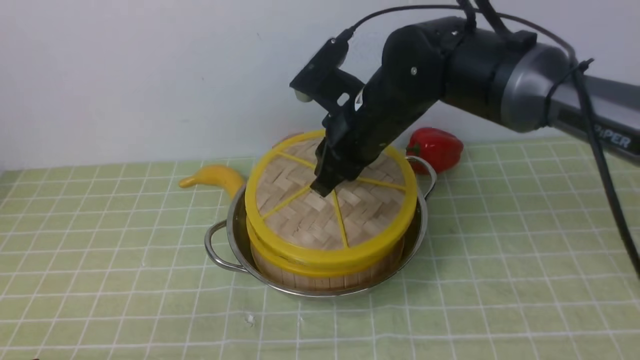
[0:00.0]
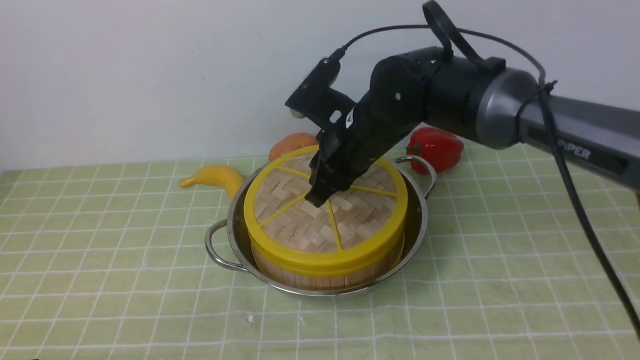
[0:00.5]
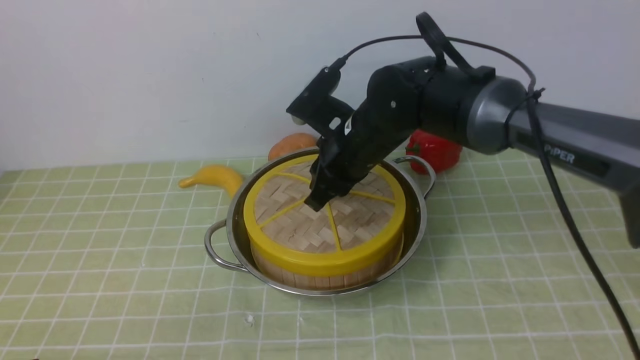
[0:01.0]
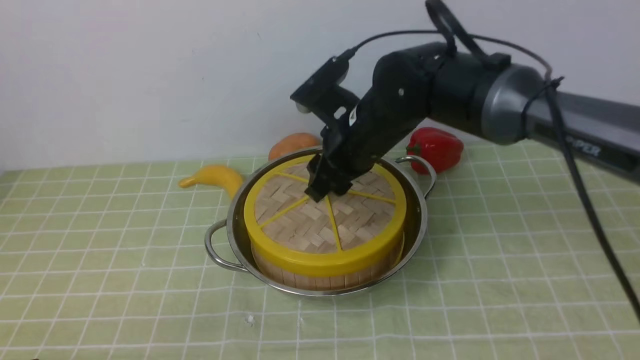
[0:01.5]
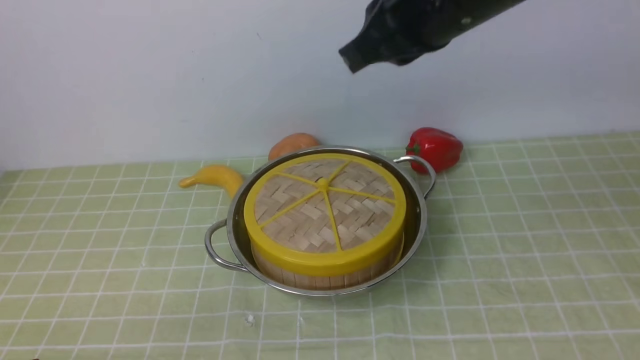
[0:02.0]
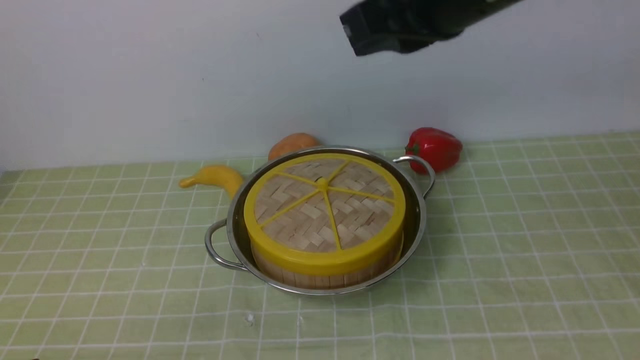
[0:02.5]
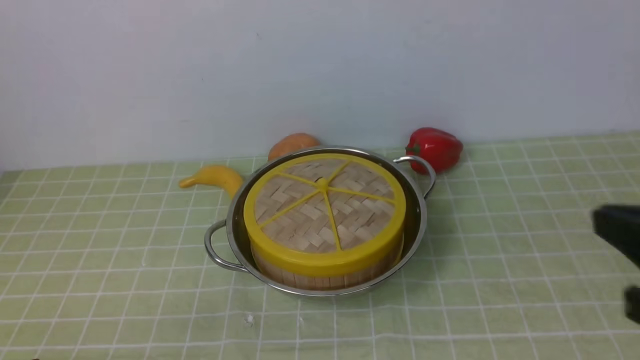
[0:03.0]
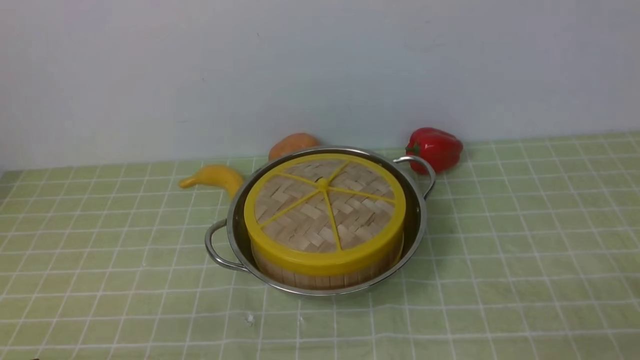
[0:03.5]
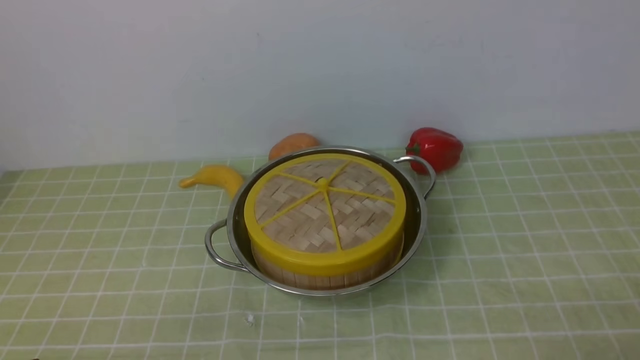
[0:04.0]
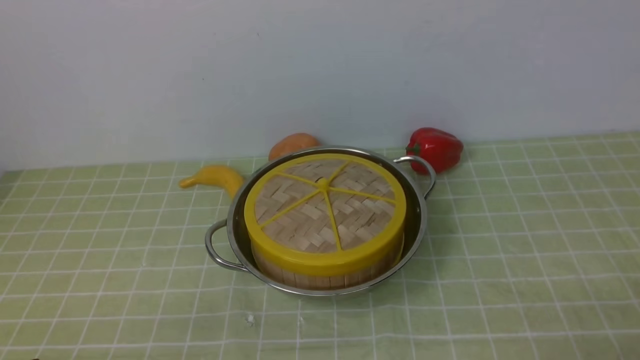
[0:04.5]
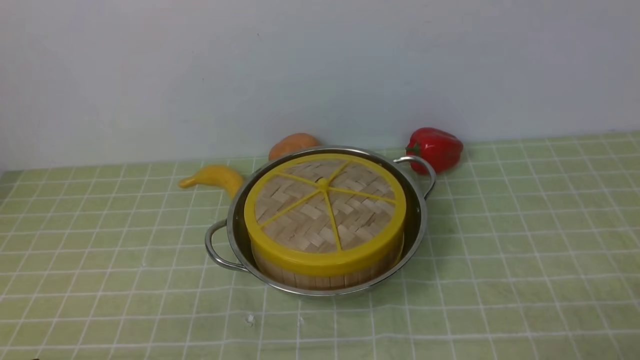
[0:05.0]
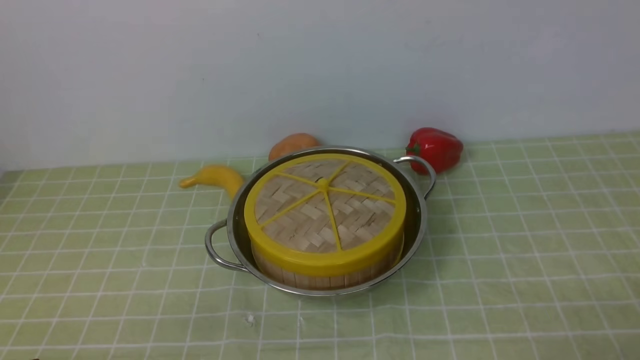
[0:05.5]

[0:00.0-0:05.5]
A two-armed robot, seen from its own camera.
Task of the whole recording: place the steamer in the pot on the green tablecloth, and put the lid on the steamer.
0:00.0 to 0:02.0: The right gripper heads upward and backward, covering some 15 cm, and closes up.
0:02.0 to 0:03.5: The right gripper shifts some 40 cm backward, to the right and downward.

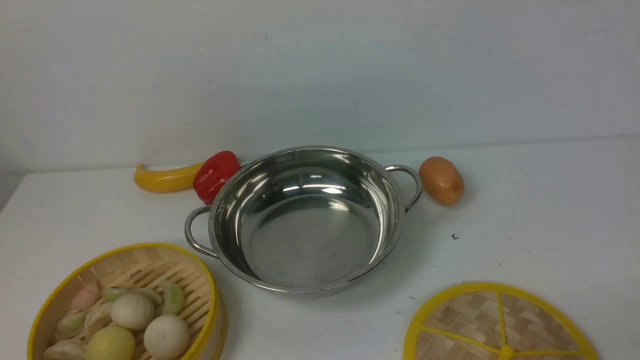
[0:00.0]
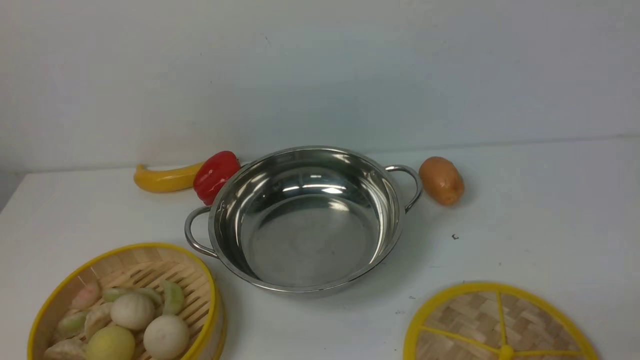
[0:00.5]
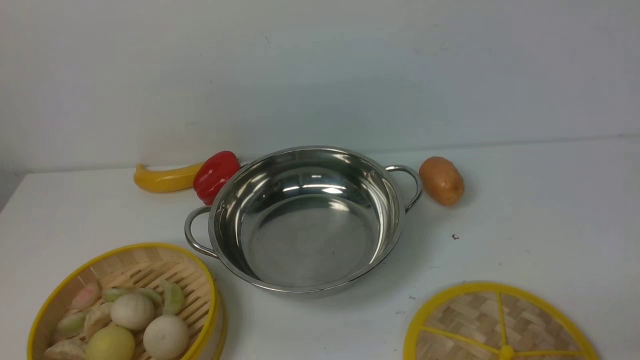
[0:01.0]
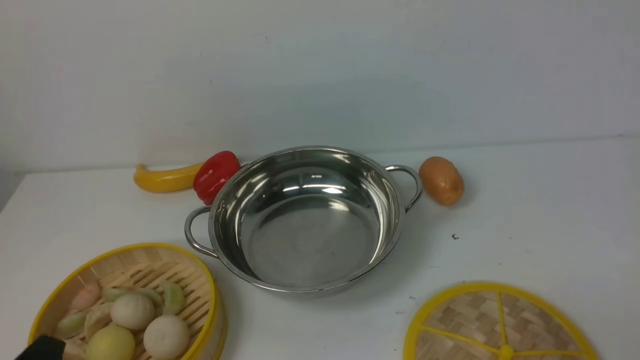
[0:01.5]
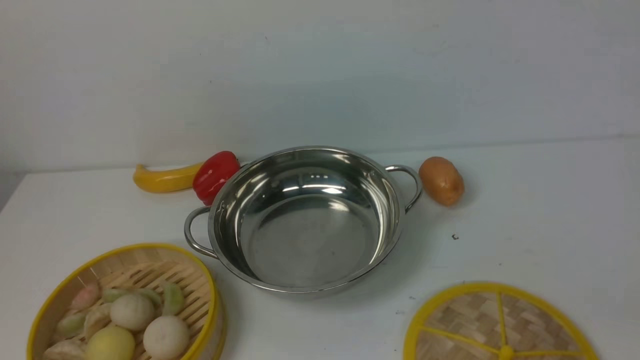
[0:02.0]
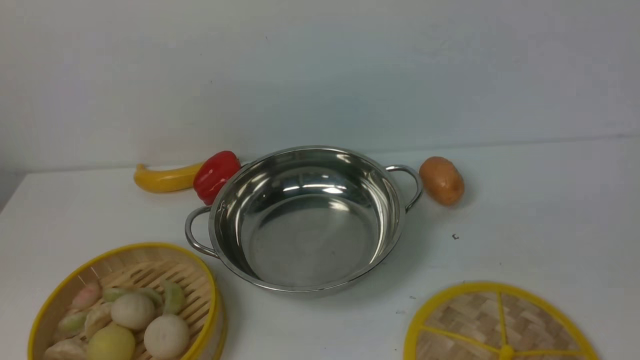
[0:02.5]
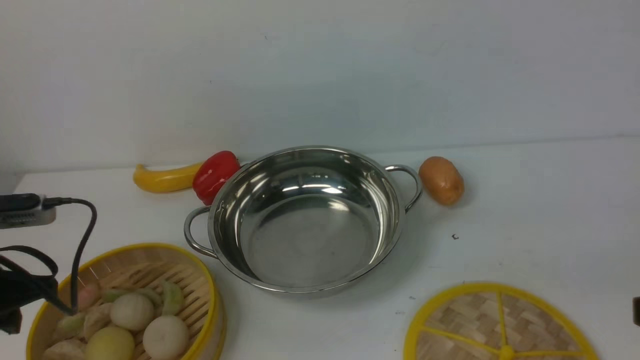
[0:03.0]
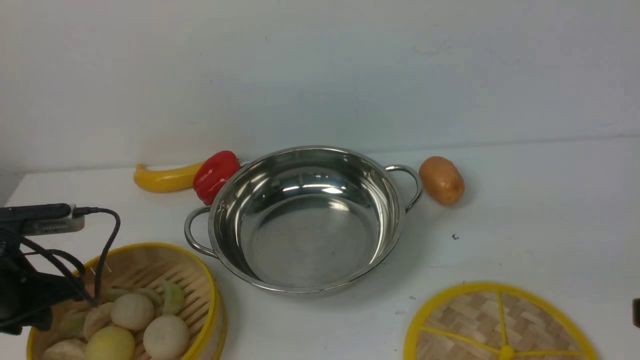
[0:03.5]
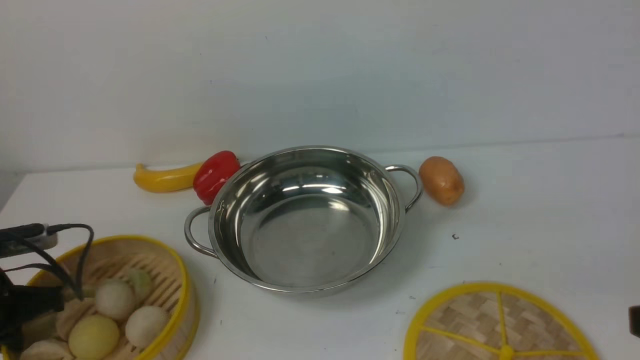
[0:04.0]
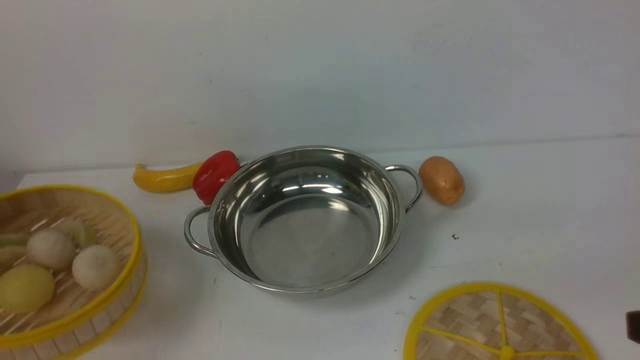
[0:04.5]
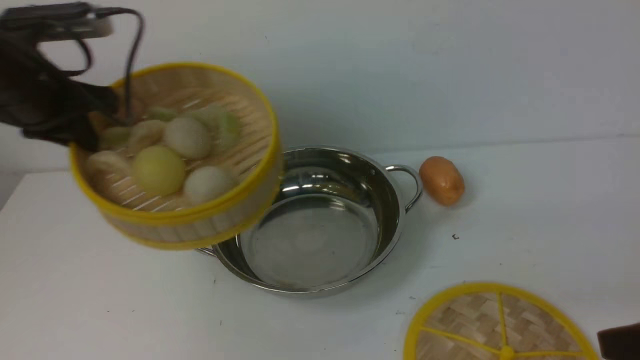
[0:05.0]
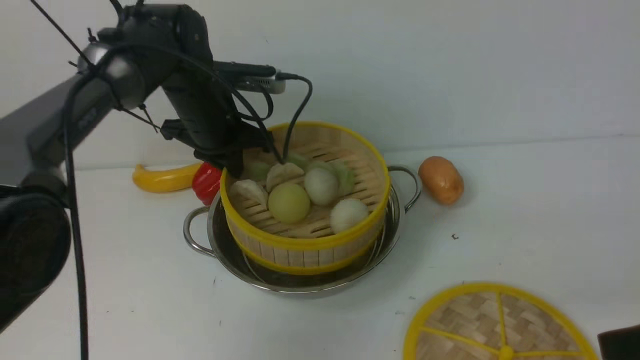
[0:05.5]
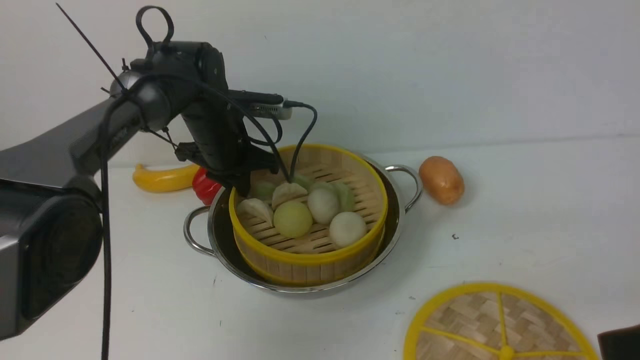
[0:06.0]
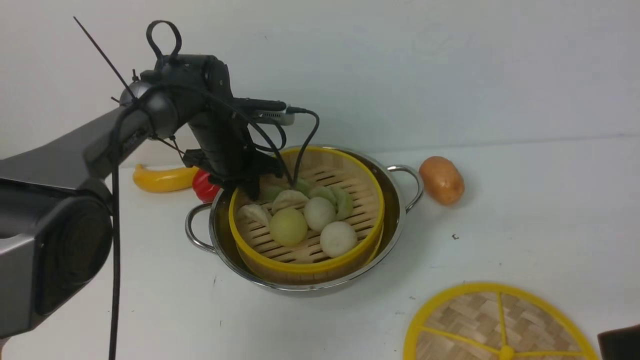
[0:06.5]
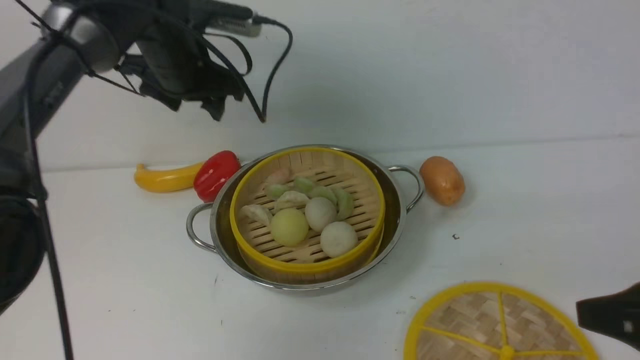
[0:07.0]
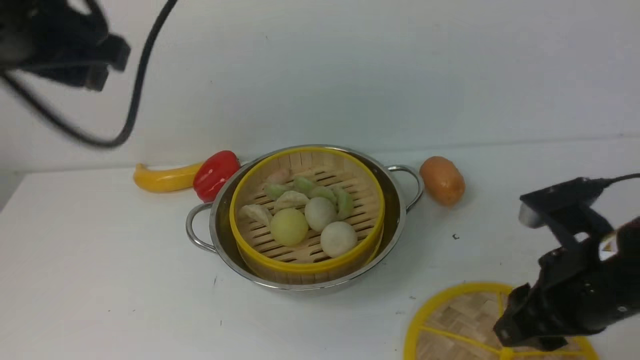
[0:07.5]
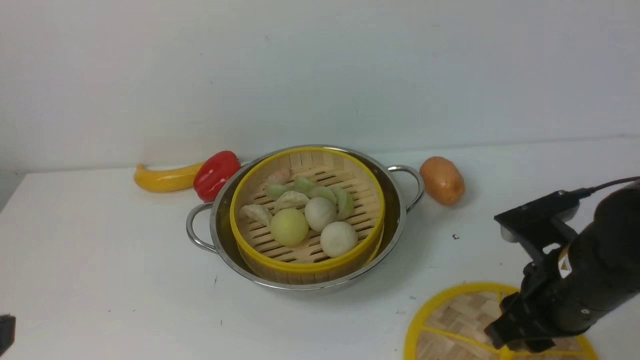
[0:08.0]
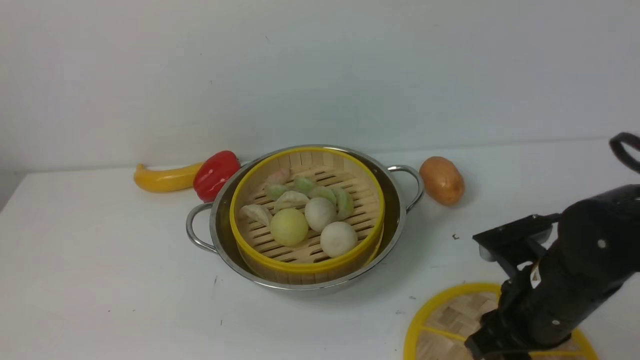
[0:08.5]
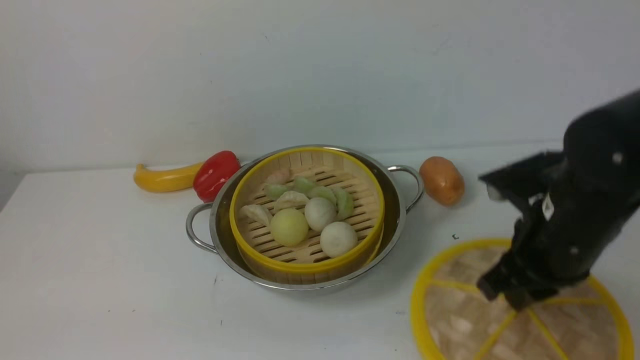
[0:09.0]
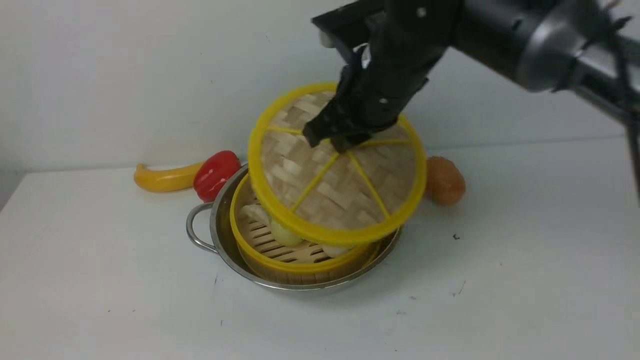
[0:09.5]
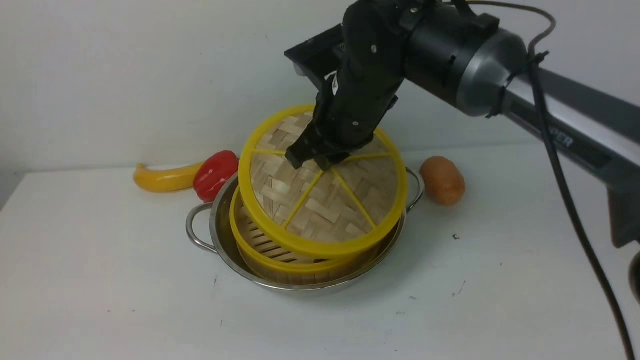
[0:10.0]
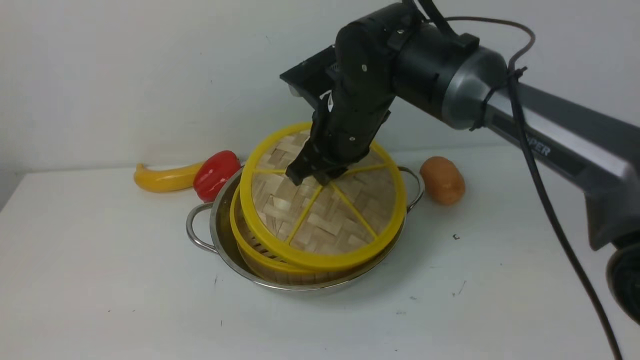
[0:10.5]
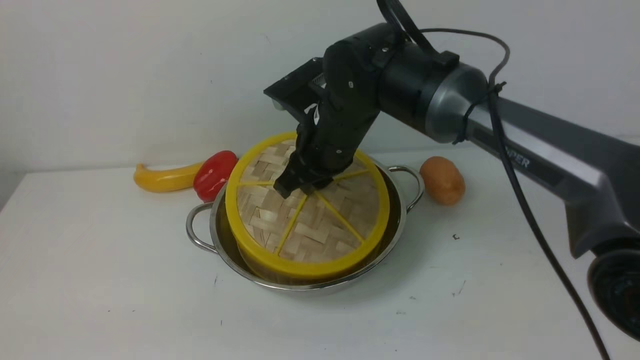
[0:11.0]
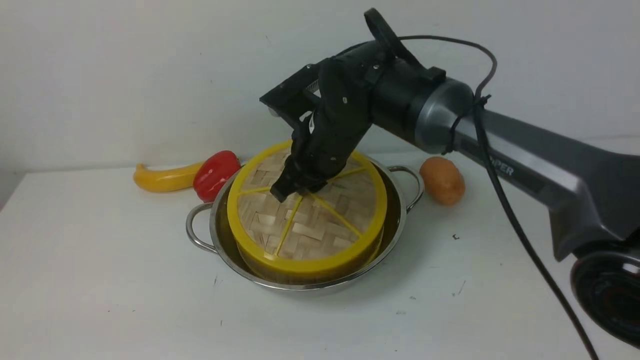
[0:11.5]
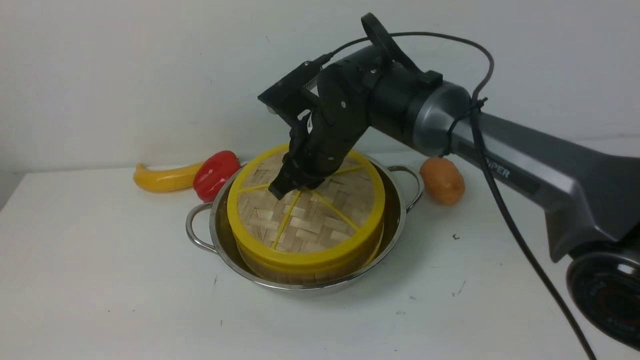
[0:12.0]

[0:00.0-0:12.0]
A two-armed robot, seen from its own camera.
Task of the whole recording: place the steamer in the pot on the white table, and put the lid on the steamer.
Step, 0:00.0 to 0:04.5: use the left arm to lift the steamer closest to it.
Step, 0:05.0 to 0:07.0: use the left arm to put the steamer into the iron steamer pot in the middle.
Step, 0:07.5 to 0:08.5: use the right arm to lift the lid of the steamer.
0:02.0 to 0:04.0: The left gripper shifts about 30 cm forward, downward and to the left, and closes. Meanwhile the right gripper shifts approximately 5 cm forward.
0:04.0 to 0:06.0: The left gripper travels to the right and forward by roughly 30 cm.
0:06.0 to 0:08.0: The left gripper moves backward, about 40 cm, and opens, while the right gripper travels forward, to the left and downward by approximately 15 cm.
0:08.0 to 0:10.0: The right gripper goes roughly 25 cm to the left, forward and upward.
0:10.0 to 0:12.0: The right gripper heads downward, covering some 5 cm.

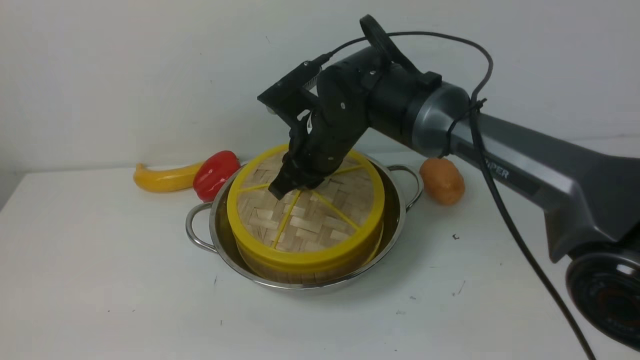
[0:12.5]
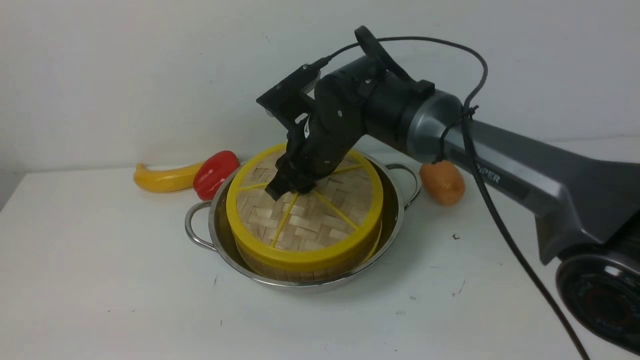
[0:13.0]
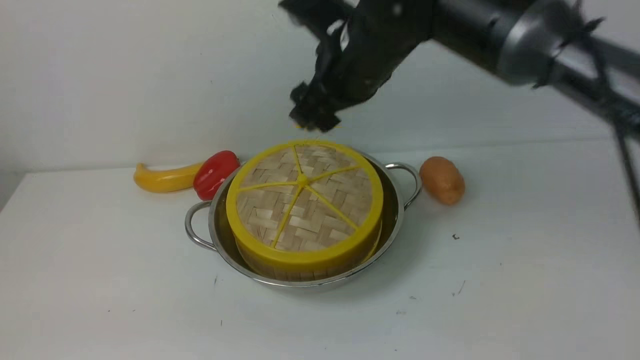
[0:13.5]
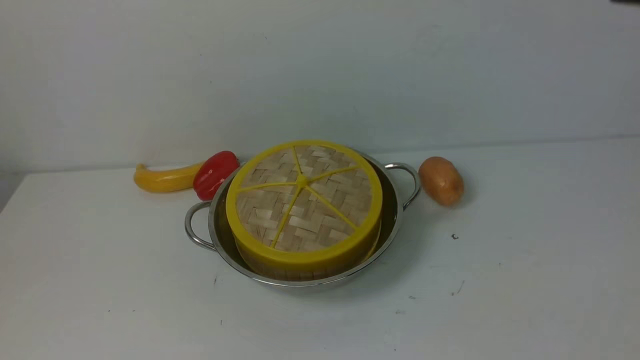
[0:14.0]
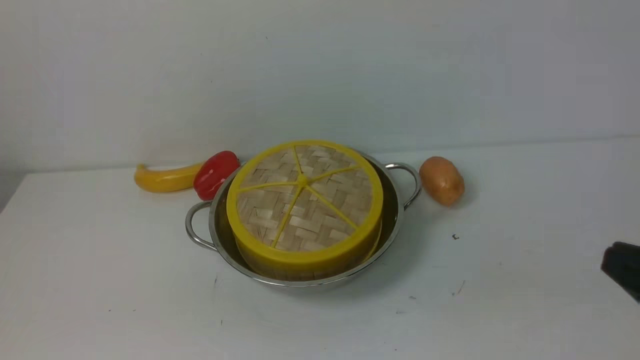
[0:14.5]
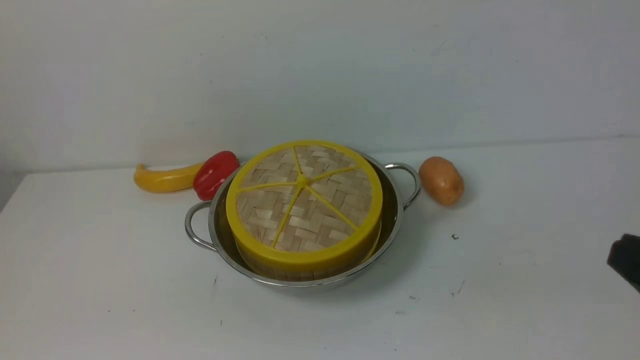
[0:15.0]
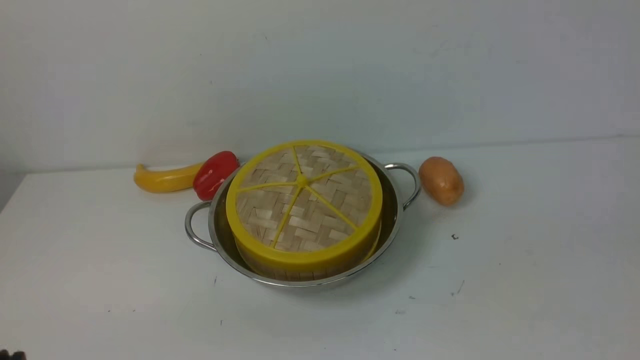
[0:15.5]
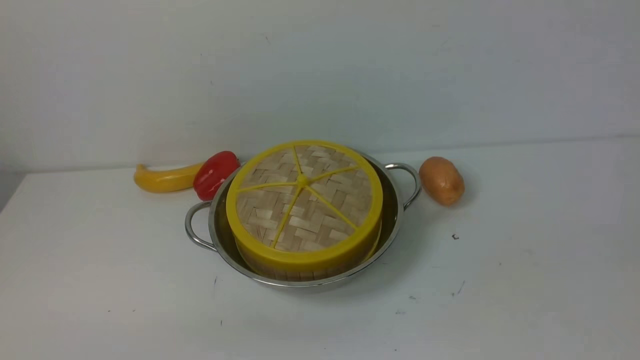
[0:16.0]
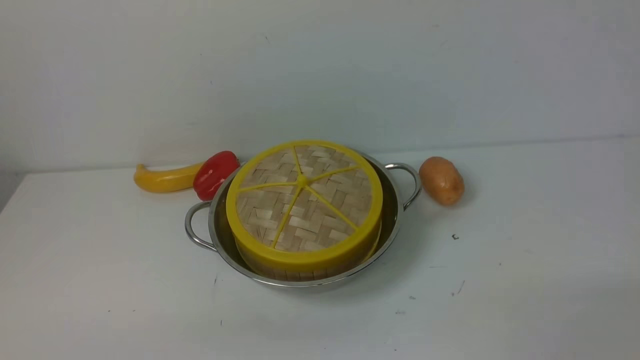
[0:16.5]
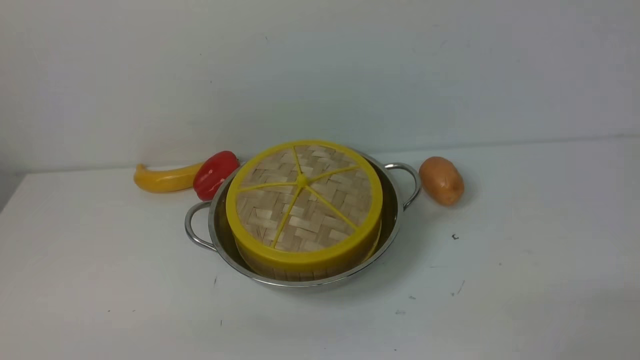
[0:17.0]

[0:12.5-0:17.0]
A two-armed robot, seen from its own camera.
Task of the whole recording: place the steamer in the pot on the white table, and put the lid on the steamer.
0:12.5 to 0:14.5: The right gripper goes about 40 cm backward and to the right, and opens and closes again. The left gripper closes up.
0:14.5 to 0:17.0: The right gripper shifts some 10 cm downward, and opens up.
